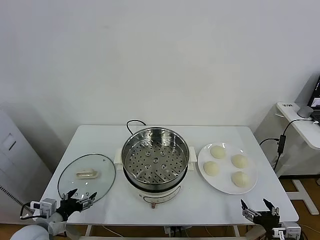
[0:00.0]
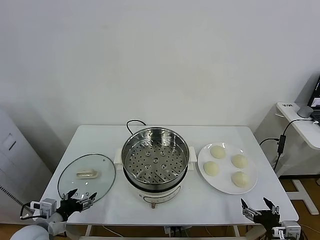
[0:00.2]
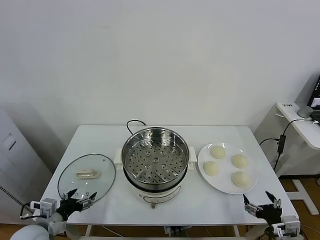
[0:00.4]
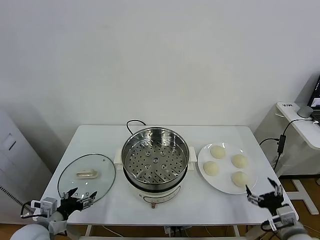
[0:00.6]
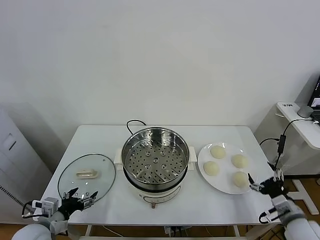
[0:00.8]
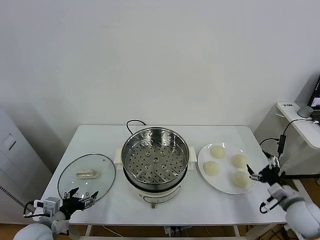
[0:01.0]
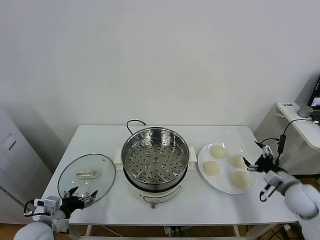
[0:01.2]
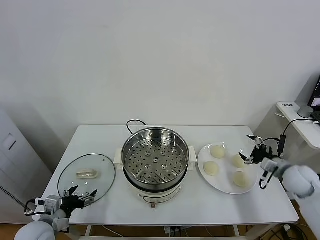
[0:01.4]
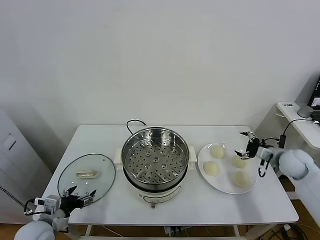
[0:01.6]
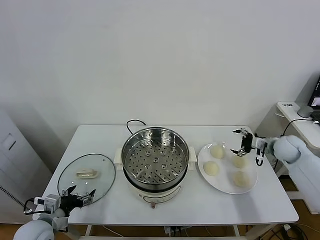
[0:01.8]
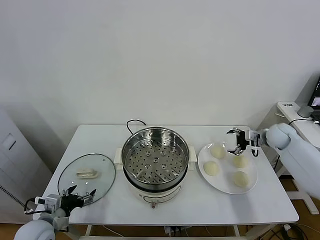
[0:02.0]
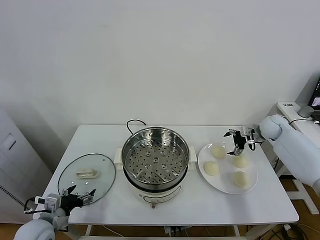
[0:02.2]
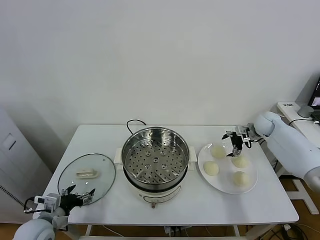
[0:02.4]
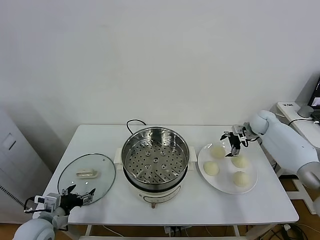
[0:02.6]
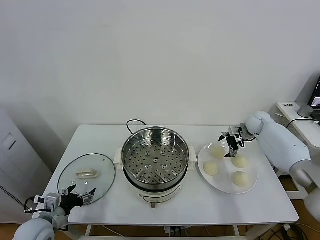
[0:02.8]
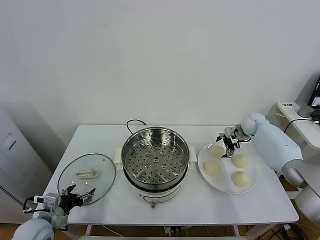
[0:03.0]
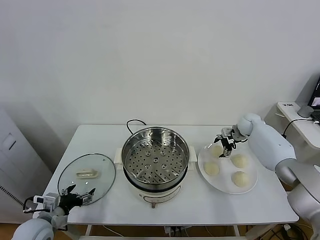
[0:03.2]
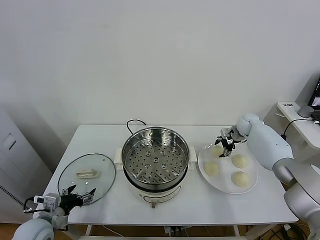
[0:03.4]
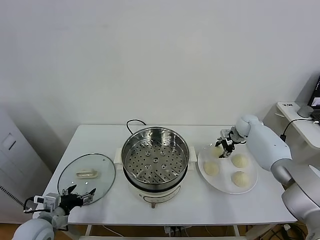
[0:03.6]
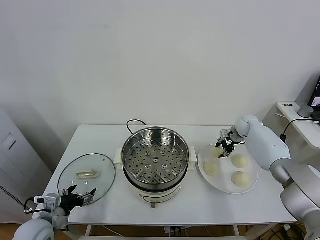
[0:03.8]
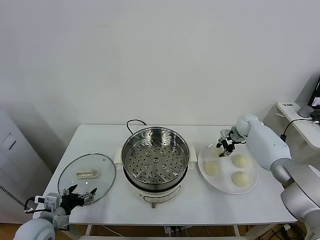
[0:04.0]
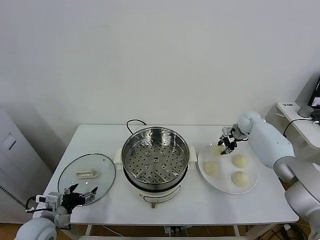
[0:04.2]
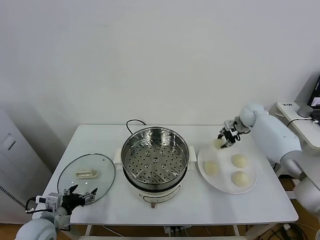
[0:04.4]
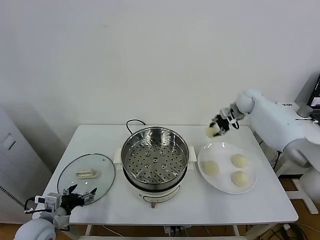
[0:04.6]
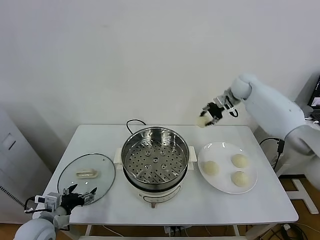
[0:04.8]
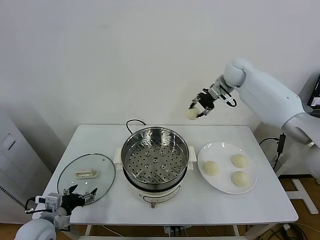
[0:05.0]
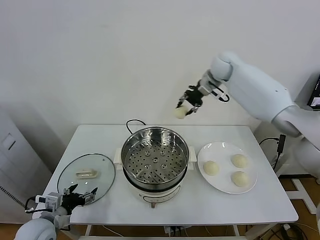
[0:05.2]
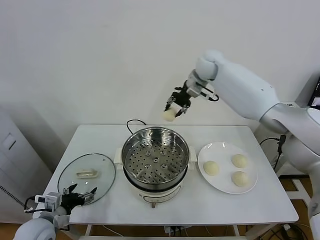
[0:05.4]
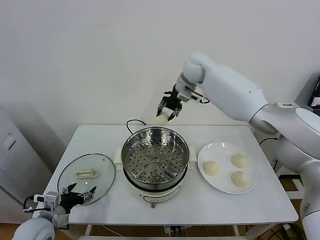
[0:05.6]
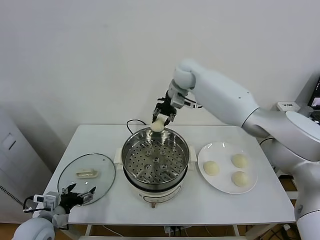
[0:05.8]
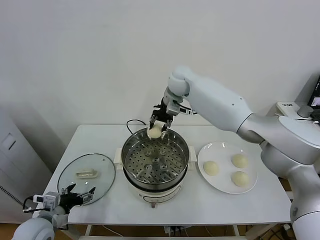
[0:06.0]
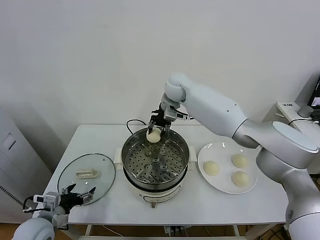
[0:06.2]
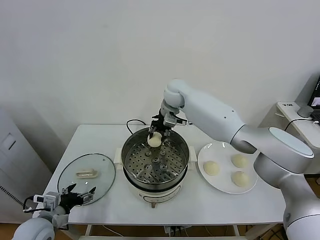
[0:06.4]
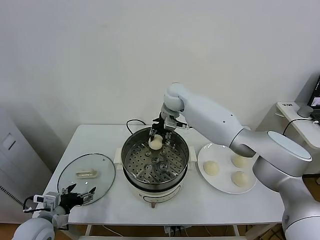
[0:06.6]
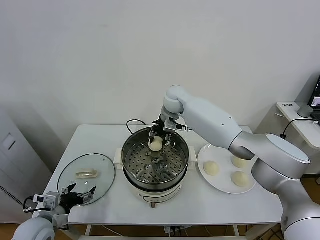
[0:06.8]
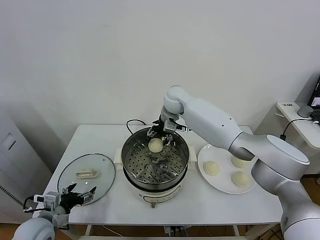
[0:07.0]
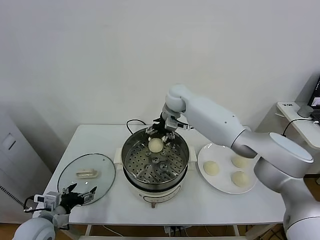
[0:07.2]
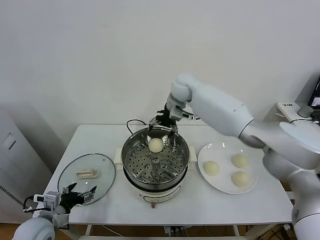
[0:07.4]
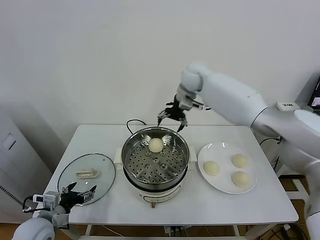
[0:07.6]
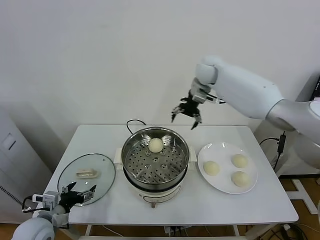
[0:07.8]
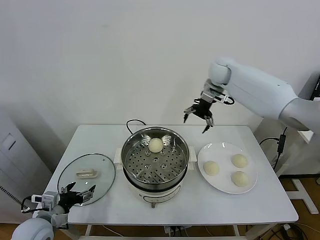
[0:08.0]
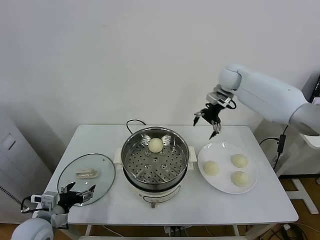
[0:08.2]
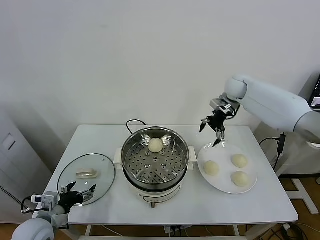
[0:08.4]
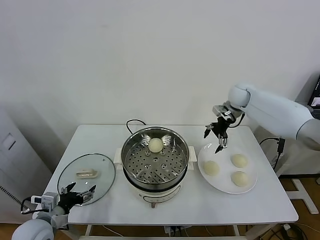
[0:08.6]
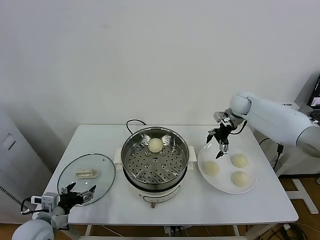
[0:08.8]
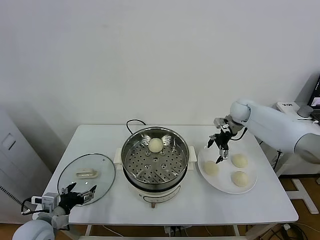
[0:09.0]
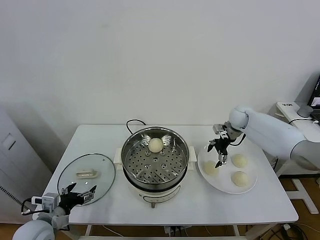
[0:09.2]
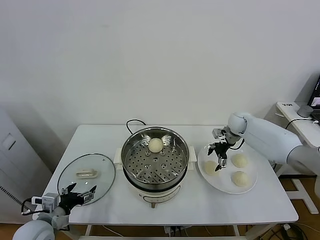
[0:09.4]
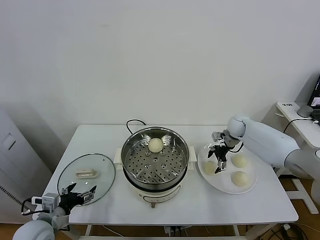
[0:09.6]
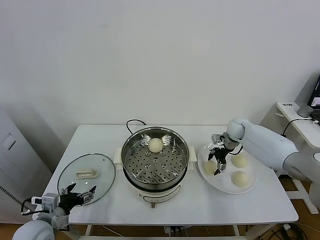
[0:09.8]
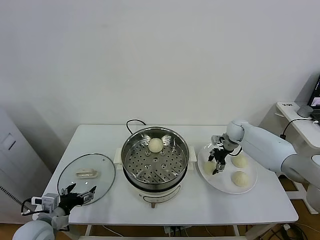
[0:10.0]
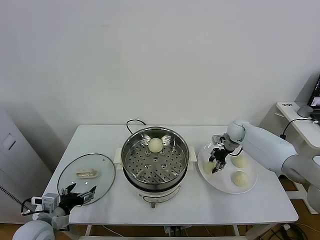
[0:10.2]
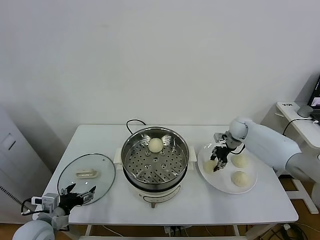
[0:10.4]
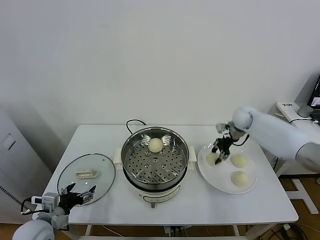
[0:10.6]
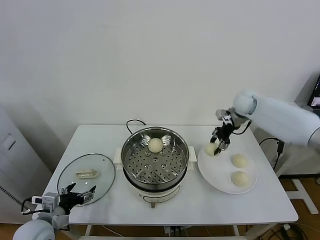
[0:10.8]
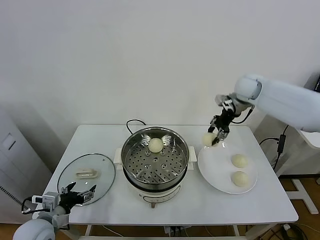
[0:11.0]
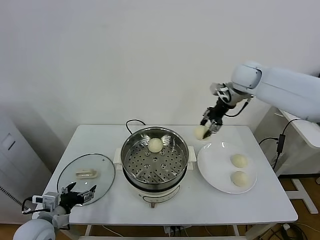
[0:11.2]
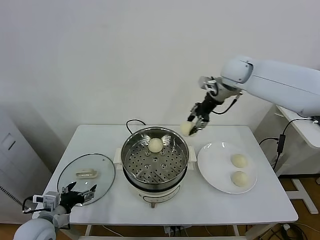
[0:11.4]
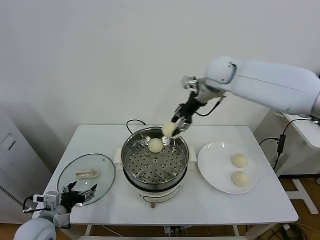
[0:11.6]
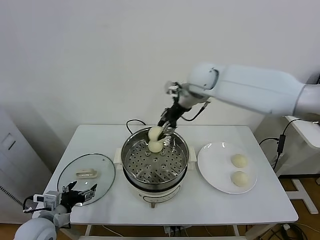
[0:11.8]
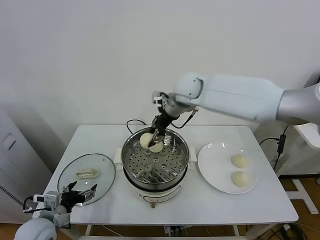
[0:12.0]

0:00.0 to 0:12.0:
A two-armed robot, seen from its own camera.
Task of the whole recording: take steamed baozi put them in steamer.
Step, 0:00.0 to 0:03.4: Grasp the baozi in the plate with right gripper.
Step, 0:03.6 to 0:07.2: Place the baozi on the steamer with right gripper.
Step, 0:07.4 to 0:10.0: Grasp the baozi in the plate with right gripper.
0:01.6 to 0:03.0: The right gripper heads forward and to the left, covering roughly 20 cm.
0:03.0 to 0:04.4: The right gripper shifts about 5 cm upward, and closes up.
0:04.4 to 0:06.0: The right gripper goes approximately 35 cm to the left and upward.
0:06.0 to 0:07.6: The right gripper shifts some 5 cm to the right, travels downward and back again, some 5 cm each way, and opens its fingers.
0:07.6 to 0:09.0: The right gripper goes about 25 cm to the right and downward.
0:09.0 to 0:10.4: The right gripper heads downward, covering roughly 5 cm, and closes.
0:10.4 to 0:12.0: The right gripper moves to the left and upward, some 35 cm.

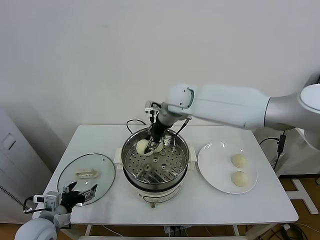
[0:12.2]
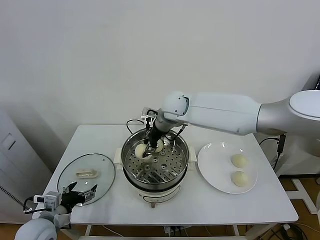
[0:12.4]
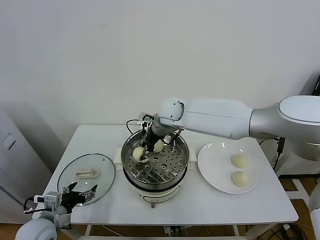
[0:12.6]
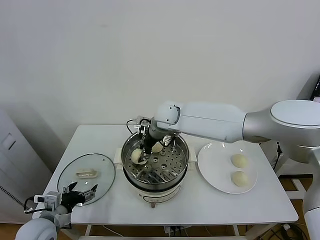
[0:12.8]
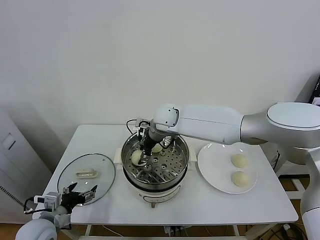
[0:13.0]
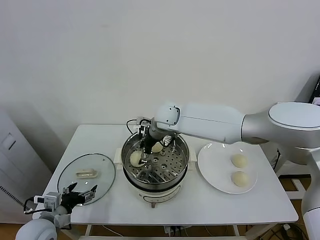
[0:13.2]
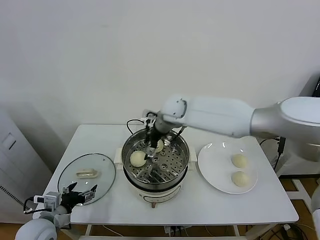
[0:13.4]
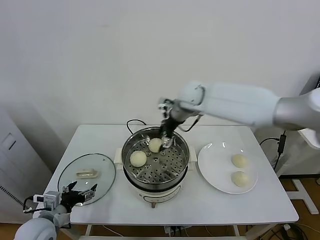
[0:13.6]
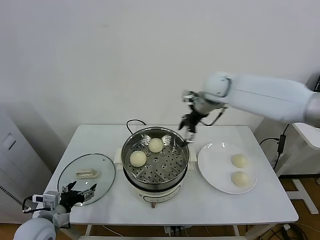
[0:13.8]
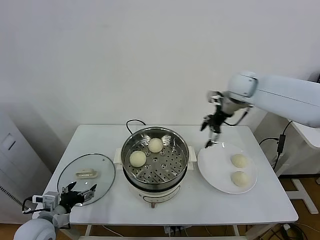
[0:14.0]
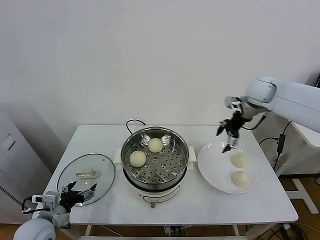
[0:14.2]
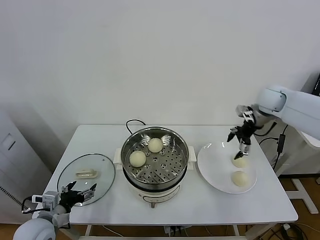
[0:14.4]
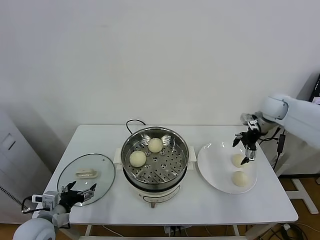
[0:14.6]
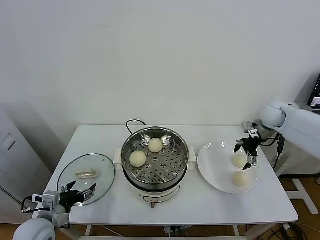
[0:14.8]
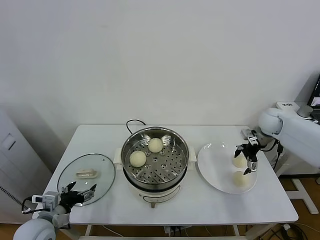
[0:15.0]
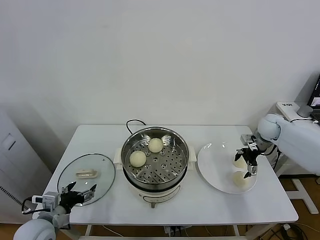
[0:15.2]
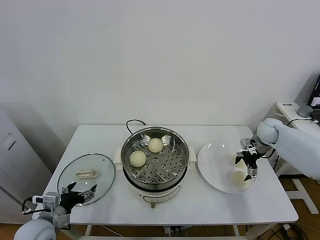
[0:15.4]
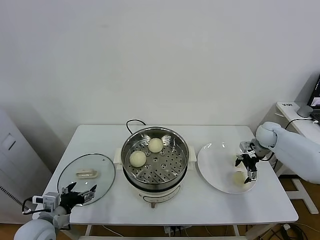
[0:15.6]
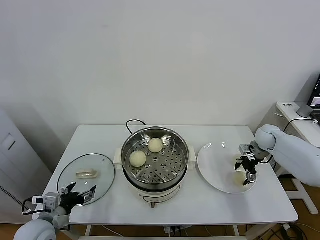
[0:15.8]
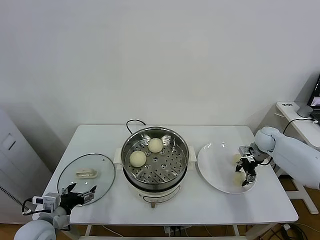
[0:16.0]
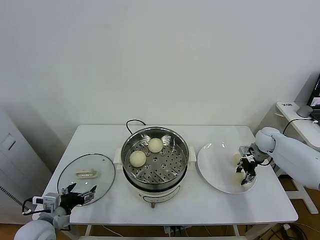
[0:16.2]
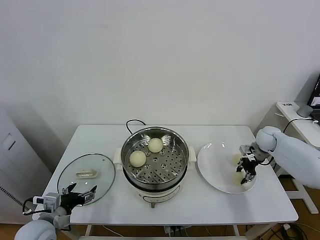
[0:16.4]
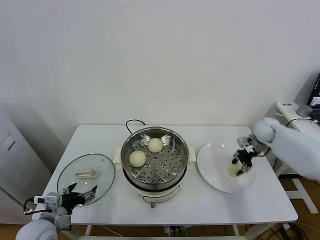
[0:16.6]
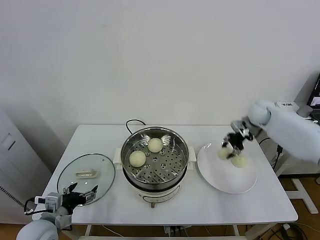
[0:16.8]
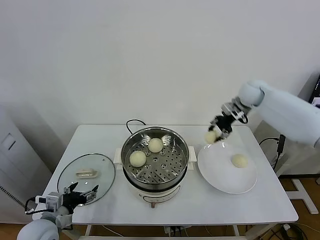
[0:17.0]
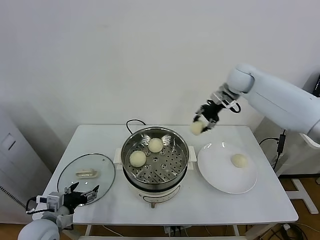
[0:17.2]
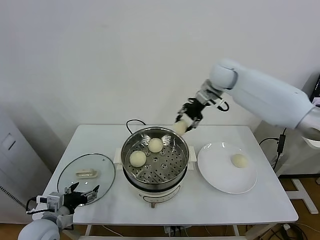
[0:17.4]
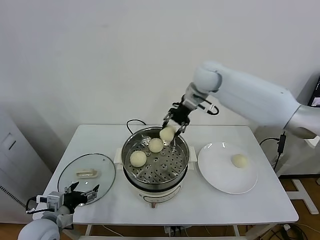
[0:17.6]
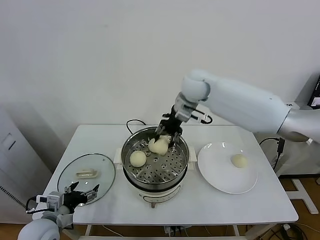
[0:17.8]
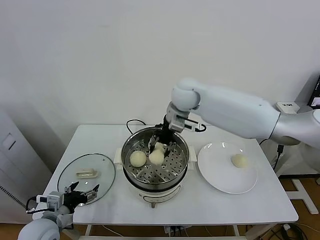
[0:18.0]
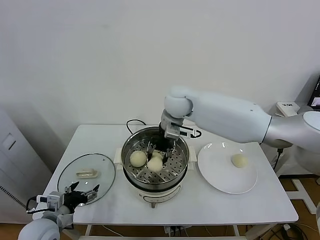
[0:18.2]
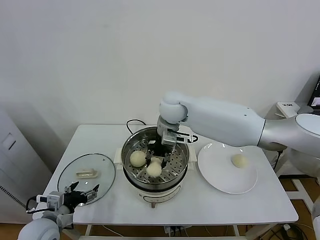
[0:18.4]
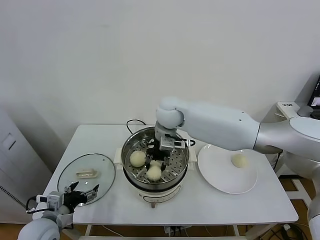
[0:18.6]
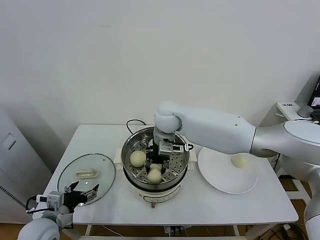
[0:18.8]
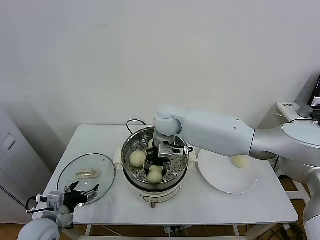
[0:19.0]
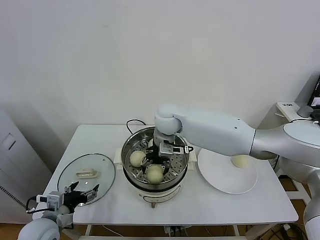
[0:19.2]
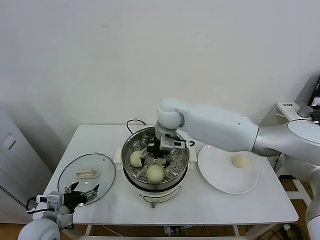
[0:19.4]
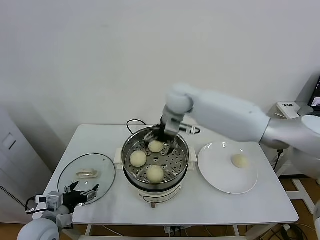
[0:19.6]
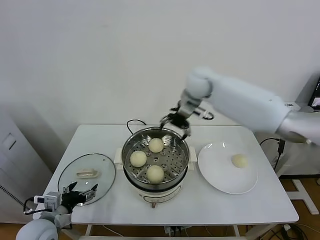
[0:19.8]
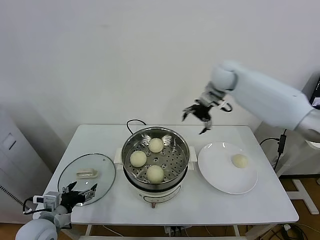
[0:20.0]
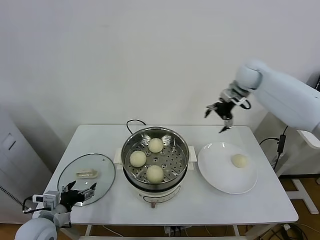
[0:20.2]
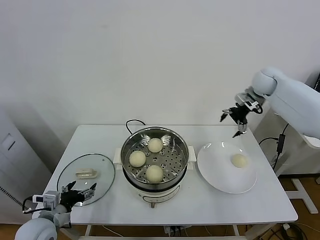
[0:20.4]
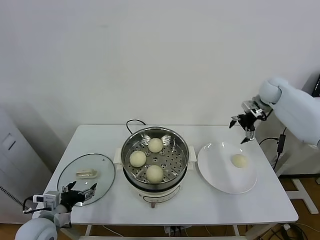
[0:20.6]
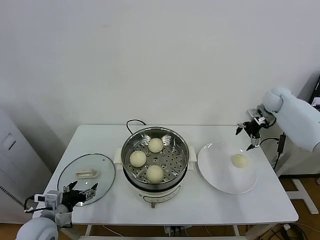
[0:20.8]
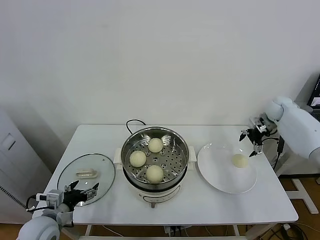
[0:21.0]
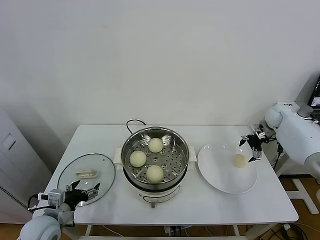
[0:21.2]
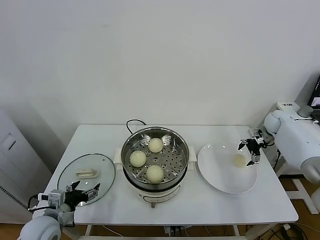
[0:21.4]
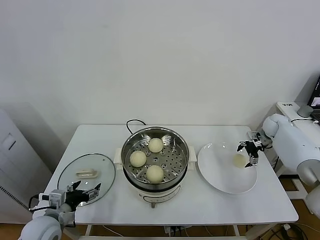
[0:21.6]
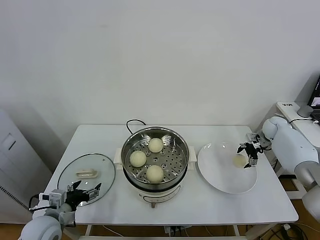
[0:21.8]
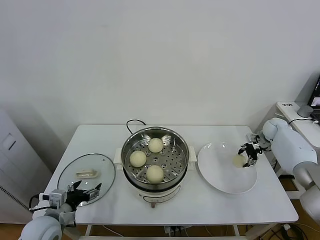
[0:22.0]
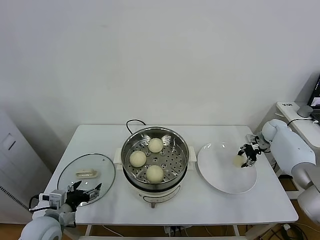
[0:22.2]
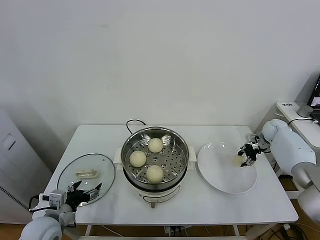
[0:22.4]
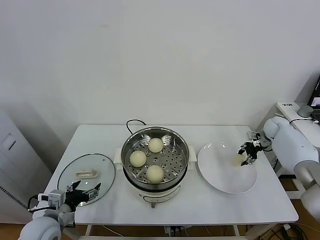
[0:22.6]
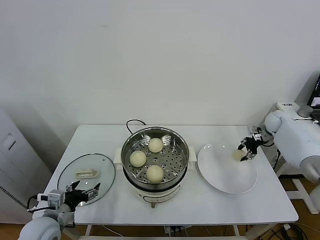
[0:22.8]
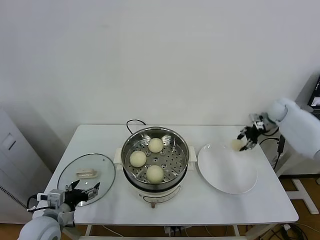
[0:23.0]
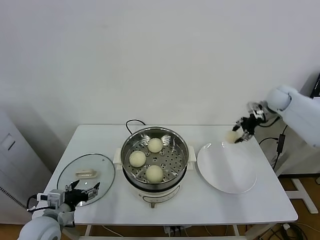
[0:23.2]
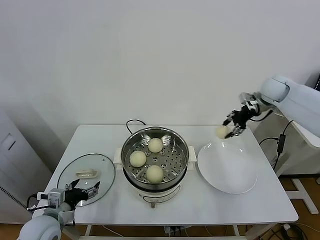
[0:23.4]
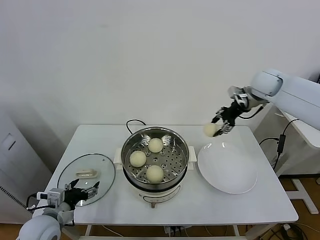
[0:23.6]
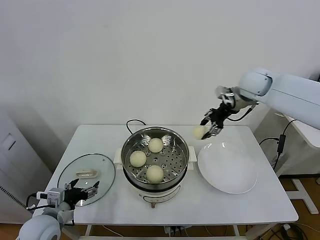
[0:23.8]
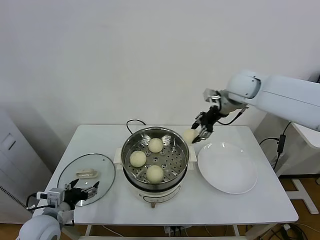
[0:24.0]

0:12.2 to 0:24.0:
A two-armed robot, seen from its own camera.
Task of the whole recording: take steamed baozi put them in steamer.
Step, 0:13.6 to 0:16.0: Grasp the baozi in the plate with right gripper.
Step, 0:16.2 to 0:19.4: Place the baozi on the steamer with right gripper.
Step, 0:19.6 to 0:22.2: Grasp the baozi in the plate with right gripper.
0:12.2 to 0:13.6: The right gripper shifts some 5 cm to the right, and opens up.
0:13.6 to 0:15.2: The right gripper travels to the right and downward by about 35 cm.
0:15.2 to 0:16.6: The right gripper closes up.
0:16.6 to 0:18.2: The right gripper goes some 40 cm to the left and upward.
0:18.2 to 0:19.6: The right gripper opens.
0:19.6 to 0:21.0: The right gripper travels to the right by roughly 40 cm.
0:21.0 to 0:22.6: The right gripper goes approximately 10 cm downward, and closes.
0:22.6 to 0:24.0: The right gripper goes approximately 35 cm to the left and upward.
